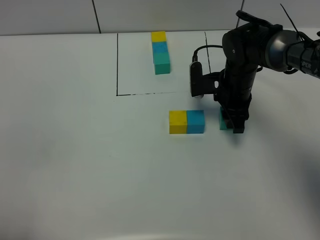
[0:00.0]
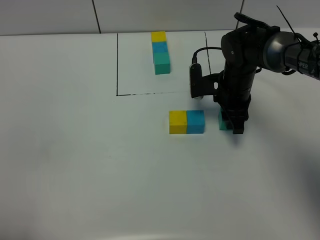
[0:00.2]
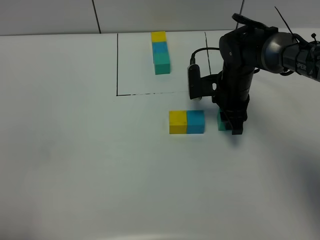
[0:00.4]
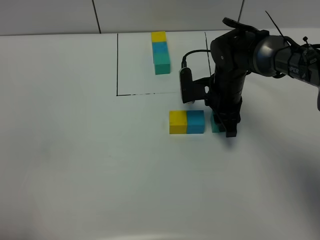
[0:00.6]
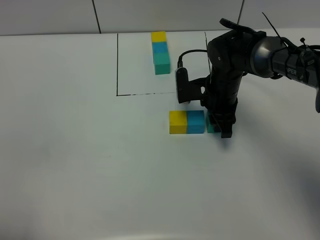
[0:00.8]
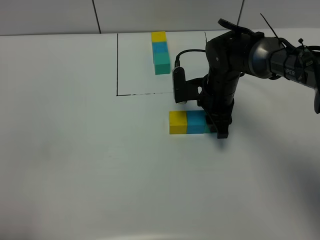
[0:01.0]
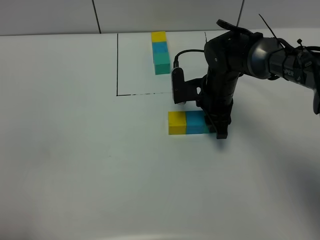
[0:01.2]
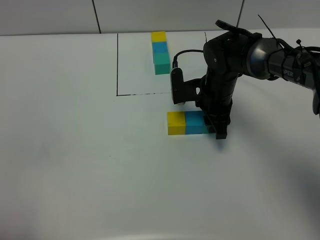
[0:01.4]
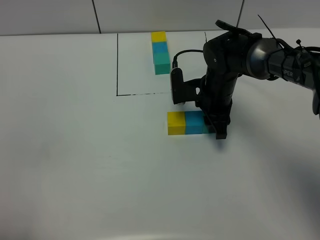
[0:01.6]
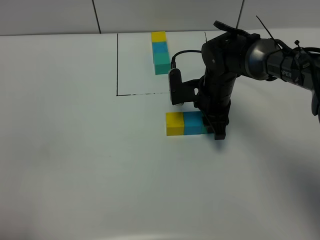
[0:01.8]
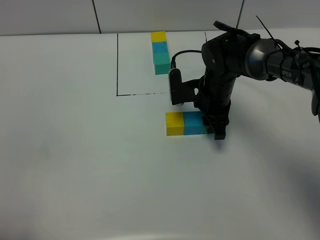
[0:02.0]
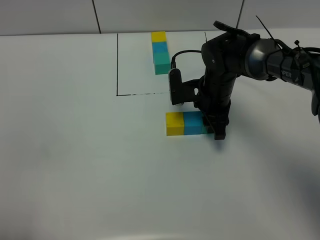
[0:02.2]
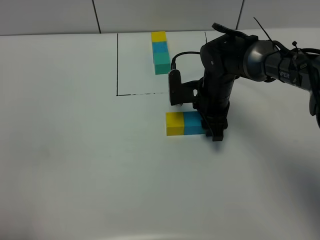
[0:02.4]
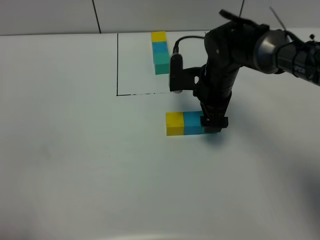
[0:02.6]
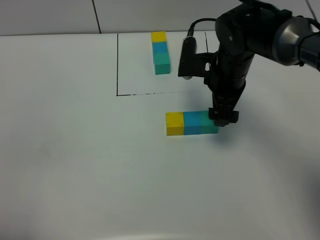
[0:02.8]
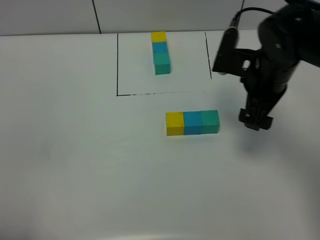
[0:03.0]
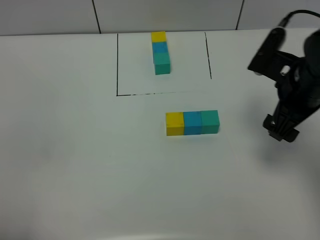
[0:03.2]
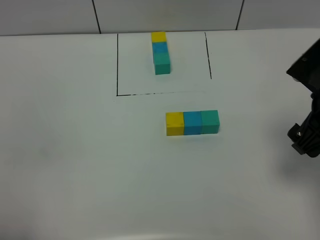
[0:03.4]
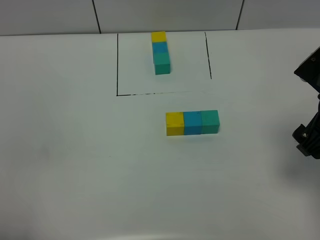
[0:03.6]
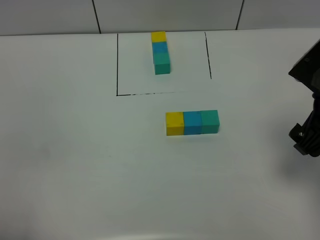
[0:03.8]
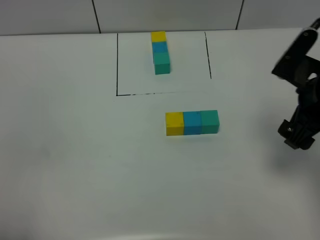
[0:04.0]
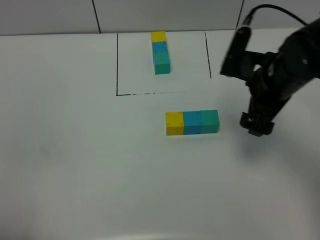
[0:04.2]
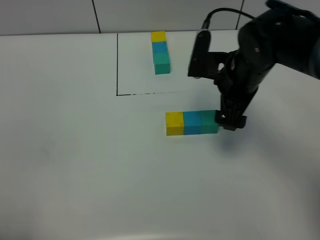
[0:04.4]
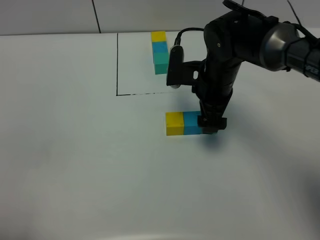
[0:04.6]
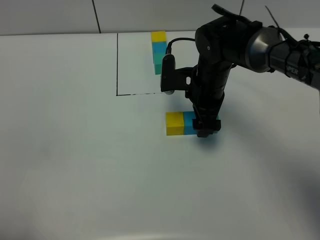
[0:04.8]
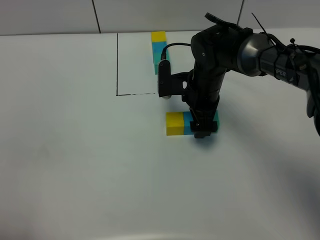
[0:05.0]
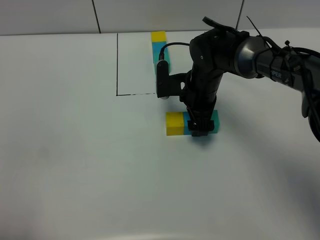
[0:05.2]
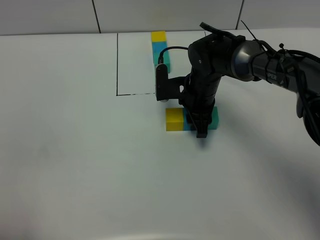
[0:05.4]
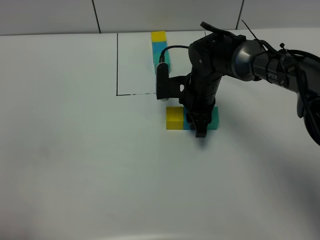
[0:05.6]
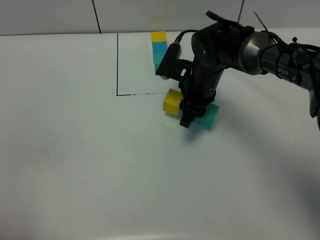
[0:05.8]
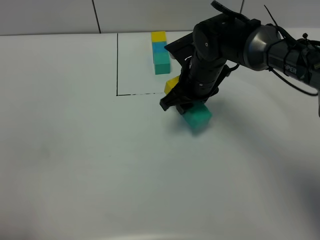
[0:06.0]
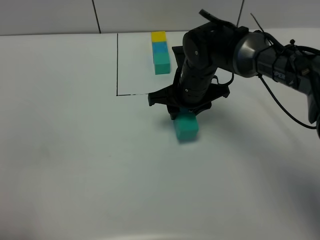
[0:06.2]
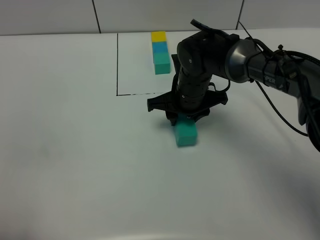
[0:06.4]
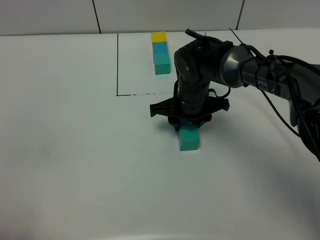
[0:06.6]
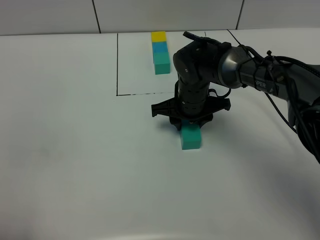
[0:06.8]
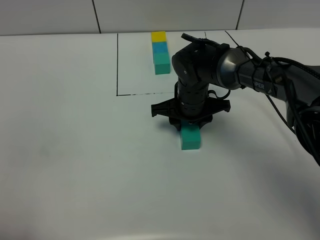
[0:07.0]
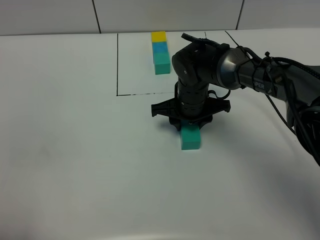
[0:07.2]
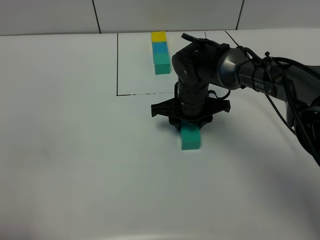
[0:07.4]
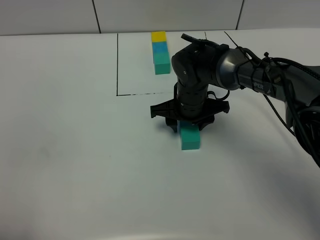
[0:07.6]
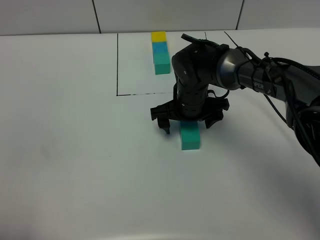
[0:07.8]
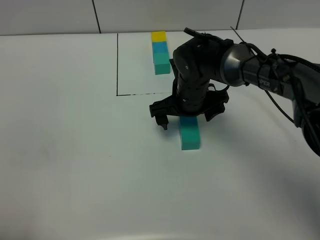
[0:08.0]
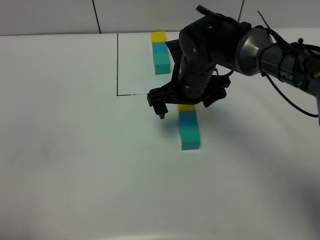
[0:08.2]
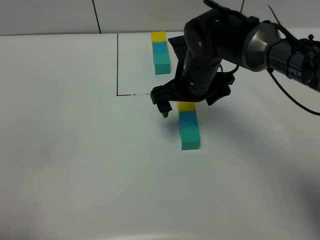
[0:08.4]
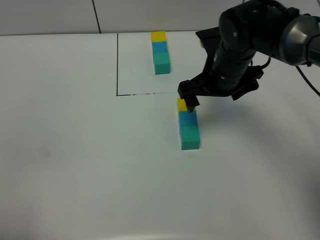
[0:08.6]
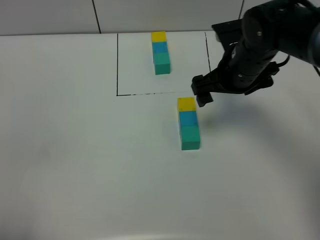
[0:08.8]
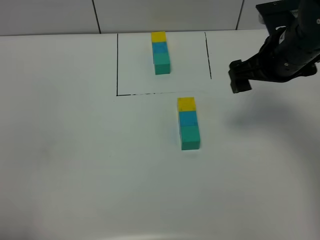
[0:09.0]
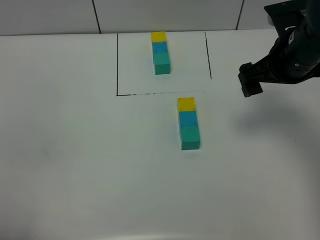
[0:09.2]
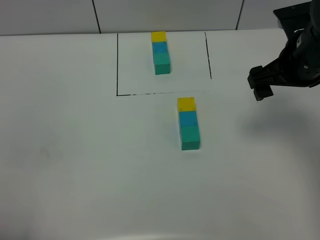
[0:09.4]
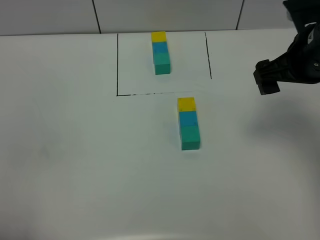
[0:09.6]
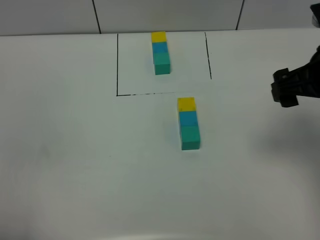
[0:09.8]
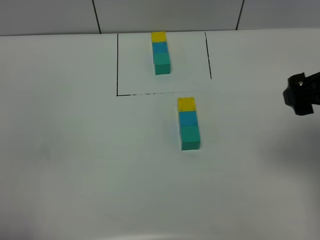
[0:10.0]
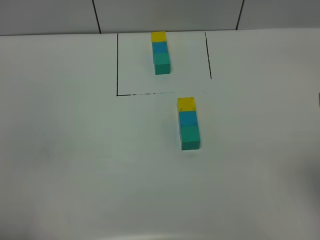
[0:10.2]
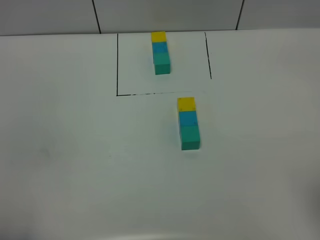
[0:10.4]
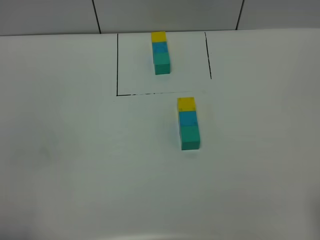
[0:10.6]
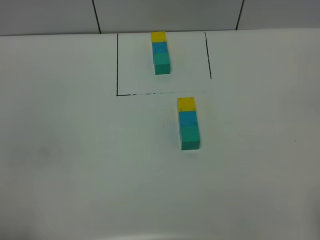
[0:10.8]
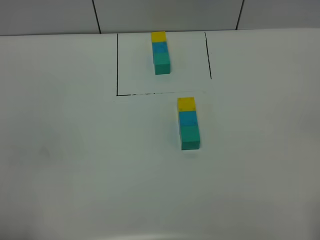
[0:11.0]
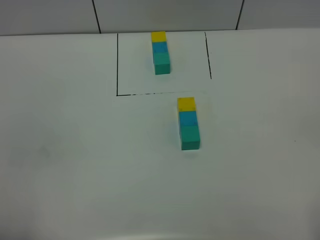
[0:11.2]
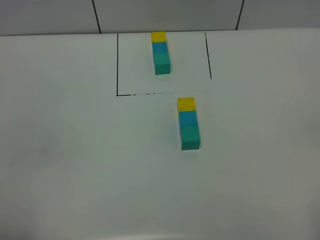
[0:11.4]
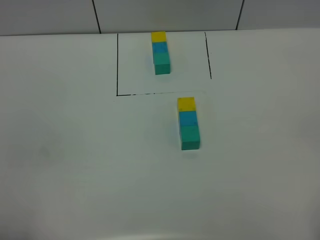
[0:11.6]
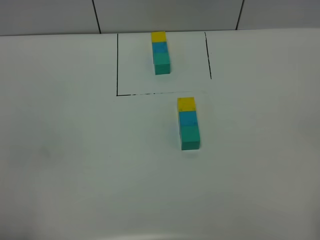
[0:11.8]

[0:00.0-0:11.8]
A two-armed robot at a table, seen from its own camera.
Task of the whole recording: According to the building block template in front, assemble the scattered blocks together.
Step, 0:00.0 to 0:02.4: Put the green build block on the right of the blue build block.
Step, 0:02.6 to 0:07.8: move the build block to the center of the table.
0:00.0 to 0:01.4: There are only small adjustments of the grippers.
0:01.4 to 0:03.0: The right gripper is displaced upward, to the right and backward by about 15 cm, and opens its fingers.
0:03.0 to 0:04.4: The right gripper goes some 5 cm to the left.
0:04.4 to 0:06.0: The right gripper ends up some 10 cm from where it was, and closes.
0:06.0 to 0:07.4: The right gripper moves some 5 cm.
0:07.4 to 0:08.8: The right gripper heads upward and to the right, covering approximately 15 cm, and opens up.
0:08.8 to 0:10.4: The right gripper shifts approximately 30 cm backward, upward and to the right.

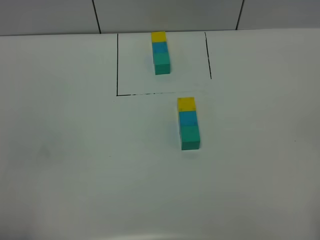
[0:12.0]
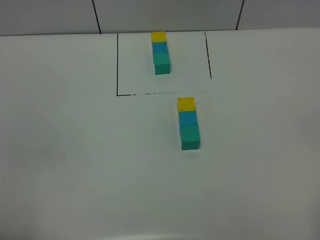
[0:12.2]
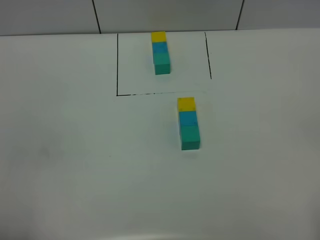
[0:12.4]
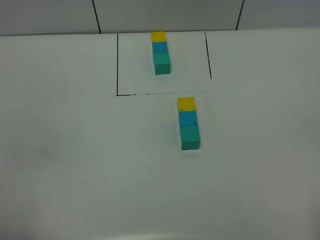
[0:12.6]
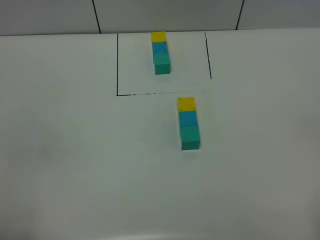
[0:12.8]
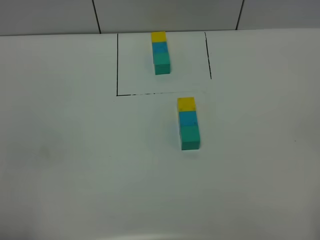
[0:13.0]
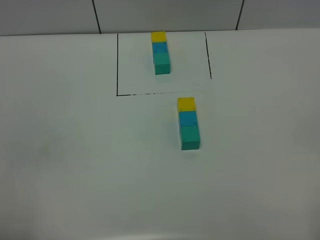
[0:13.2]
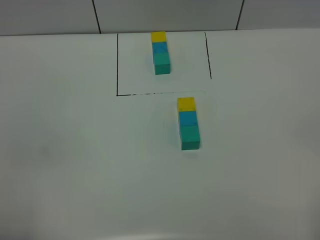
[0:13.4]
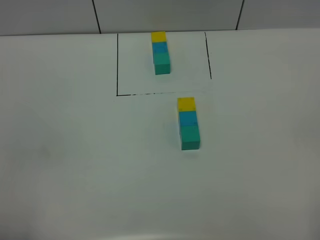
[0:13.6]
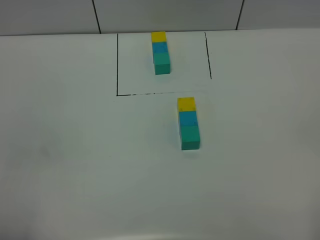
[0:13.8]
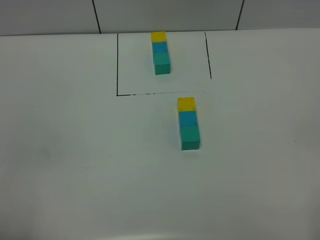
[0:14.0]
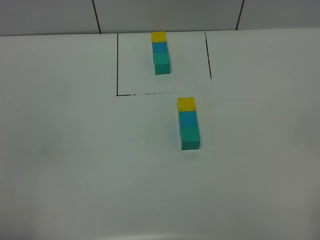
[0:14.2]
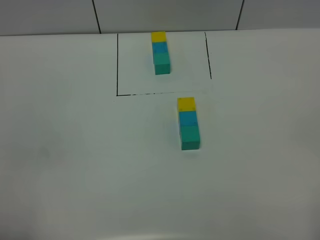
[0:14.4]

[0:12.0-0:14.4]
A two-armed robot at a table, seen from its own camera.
Task of the whole recording: According to the building block template in front, assemble the scattered blocks together.
0:12.0 to 0:13.2: Both grippers stay put.
0:13.2 to 0:14.4: Neither gripper changes place.

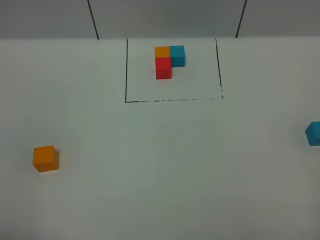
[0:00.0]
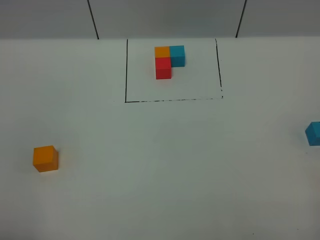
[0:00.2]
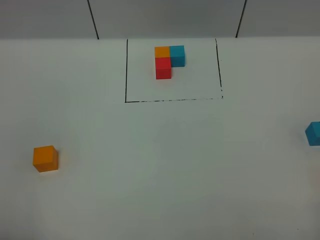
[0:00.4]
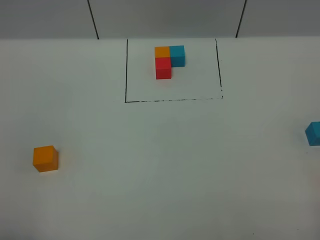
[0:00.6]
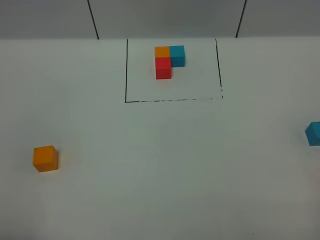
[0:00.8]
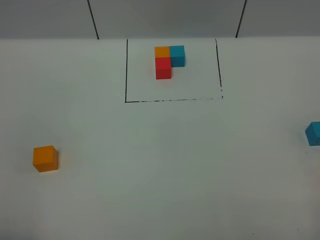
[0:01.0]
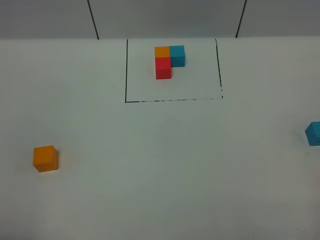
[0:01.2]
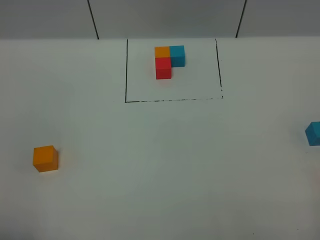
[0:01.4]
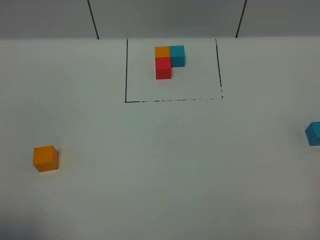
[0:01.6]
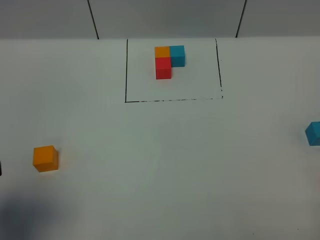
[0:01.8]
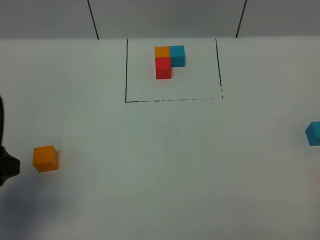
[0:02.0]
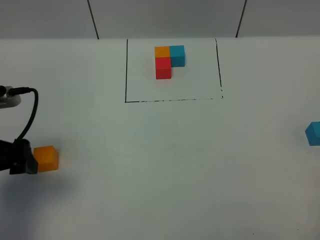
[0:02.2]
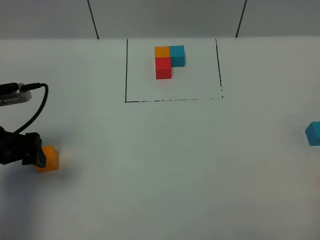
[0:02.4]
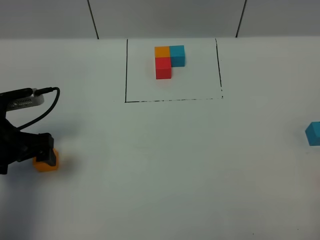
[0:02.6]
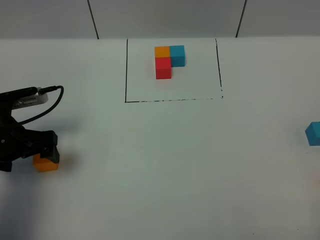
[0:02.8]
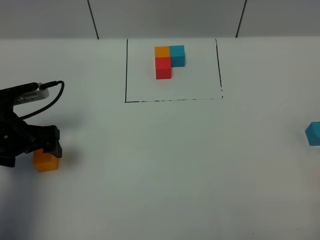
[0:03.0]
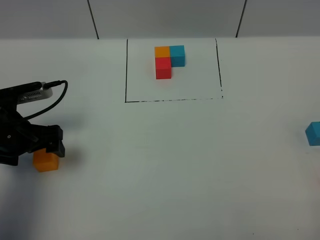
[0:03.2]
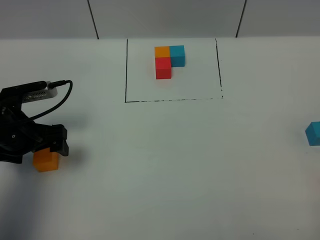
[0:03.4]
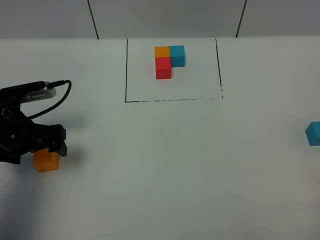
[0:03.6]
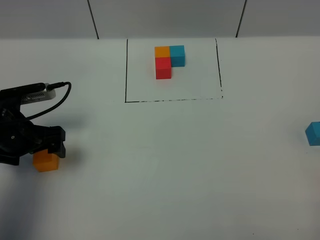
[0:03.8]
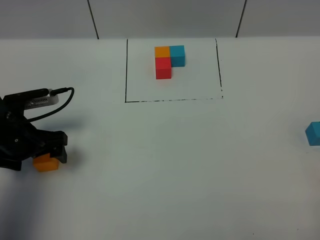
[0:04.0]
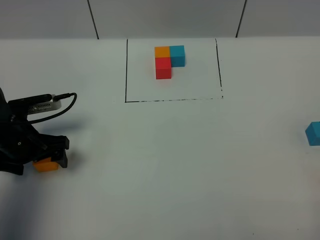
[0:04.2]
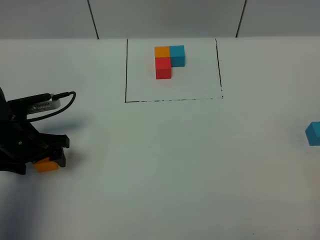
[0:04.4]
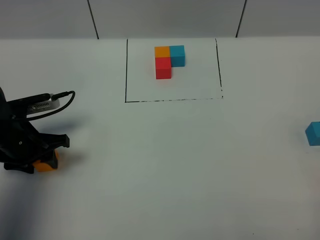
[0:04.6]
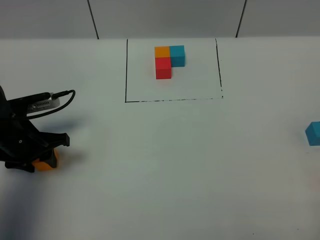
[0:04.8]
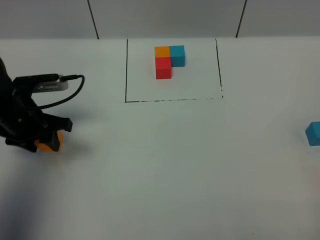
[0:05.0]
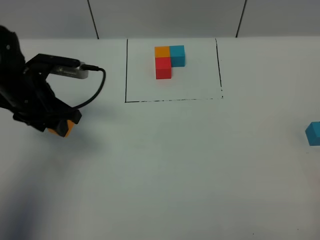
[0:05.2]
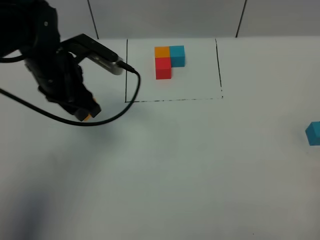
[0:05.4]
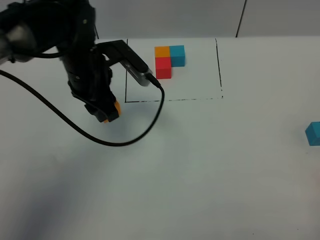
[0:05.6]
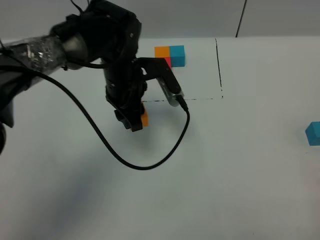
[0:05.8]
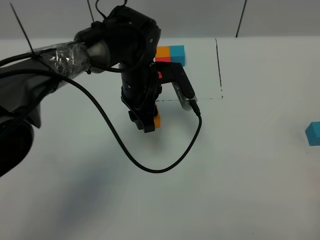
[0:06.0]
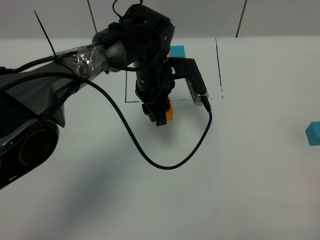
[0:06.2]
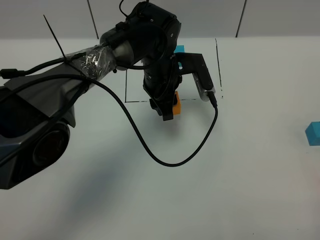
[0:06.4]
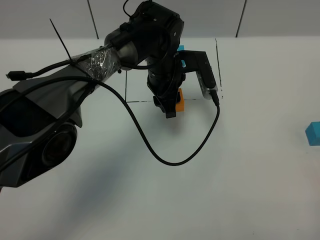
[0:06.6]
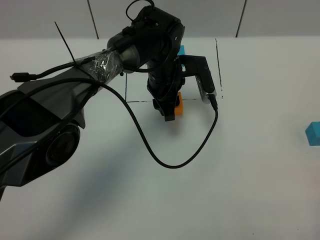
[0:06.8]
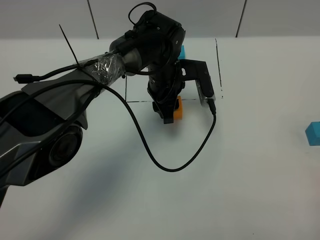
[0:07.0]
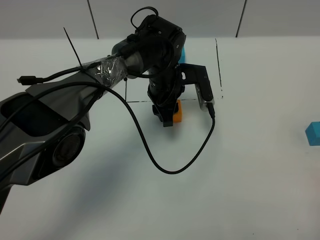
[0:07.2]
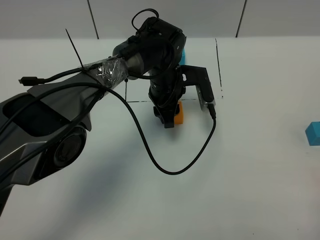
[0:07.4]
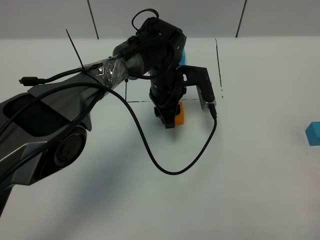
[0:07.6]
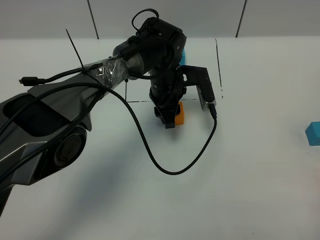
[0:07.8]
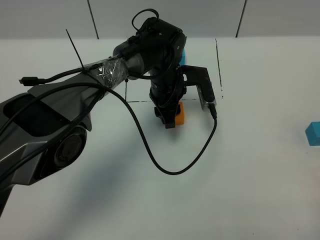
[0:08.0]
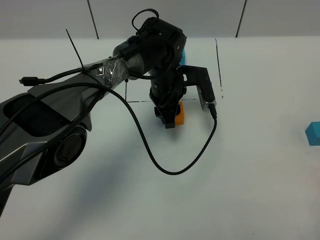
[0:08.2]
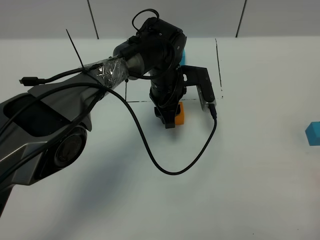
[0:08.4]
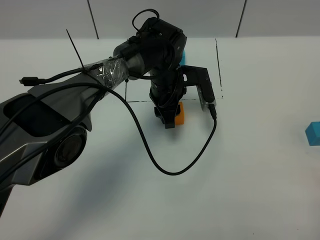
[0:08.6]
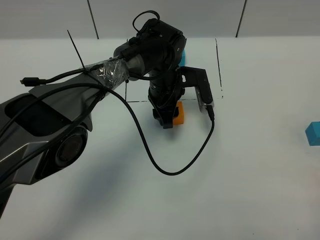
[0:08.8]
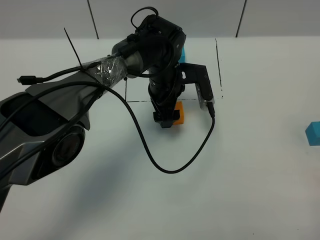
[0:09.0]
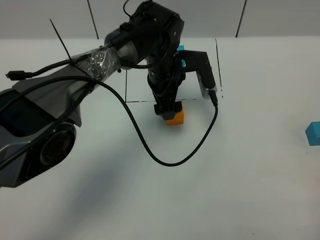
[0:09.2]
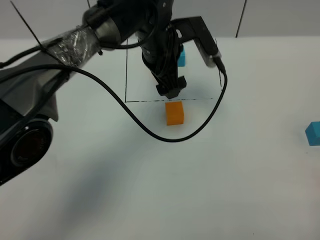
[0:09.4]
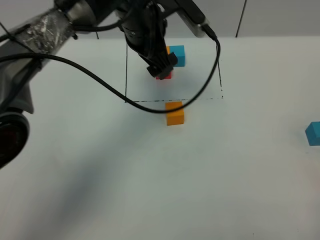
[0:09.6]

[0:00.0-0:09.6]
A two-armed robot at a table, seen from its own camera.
Task of the whole recording: According to the building block template in front, assemble the scattered blocks together.
Step, 0:00.0 to 0:08.6: Put the orange build block in the center of the table.
0:01.6 to 0:03.2: The left gripper travels forward and downward by approximately 30 cm.
0:03.2 to 0:04.8: The left gripper closes.
0:04.8 to 0:06.4: The left gripper travels to the right and forward by about 30 cm.
0:06.4 to 0:08.0: The grippers stay close to where they were, moving slightly.
0:08.0 to 0:09.6: The left gripper is displaced upward by about 15 cm, and opens its fingers.
